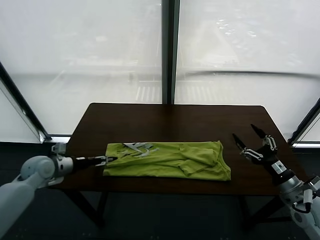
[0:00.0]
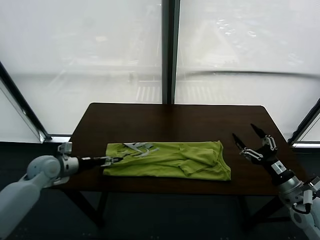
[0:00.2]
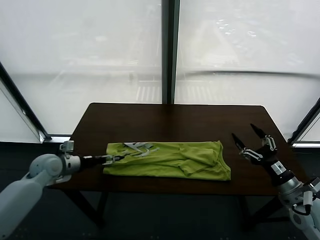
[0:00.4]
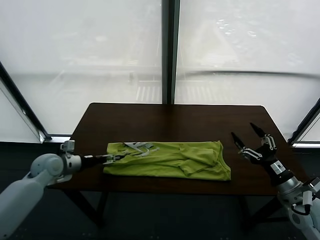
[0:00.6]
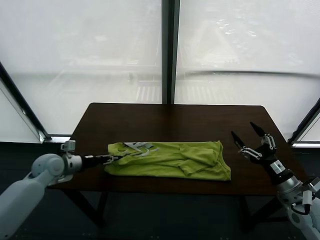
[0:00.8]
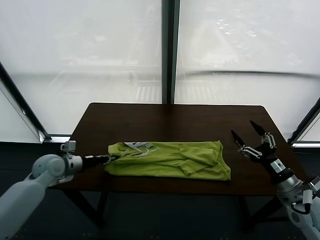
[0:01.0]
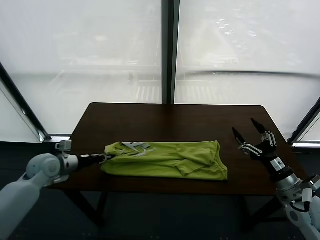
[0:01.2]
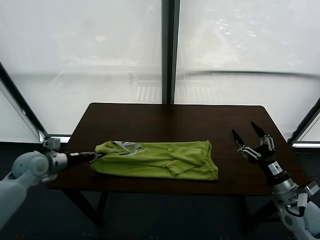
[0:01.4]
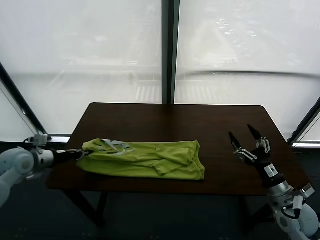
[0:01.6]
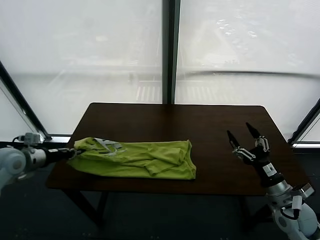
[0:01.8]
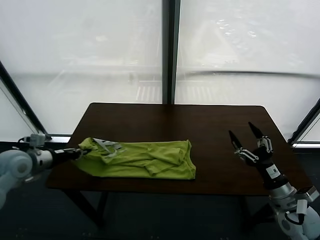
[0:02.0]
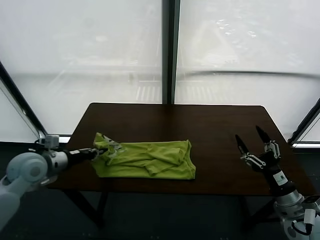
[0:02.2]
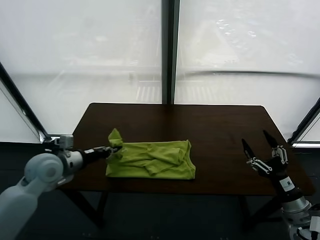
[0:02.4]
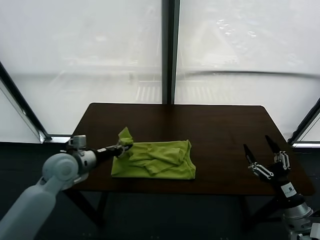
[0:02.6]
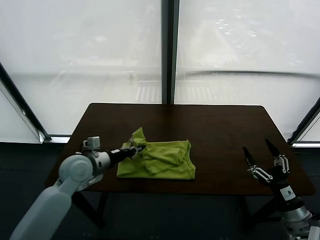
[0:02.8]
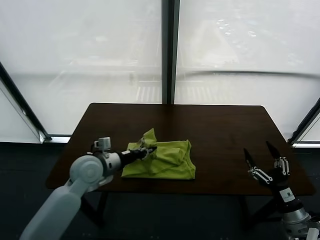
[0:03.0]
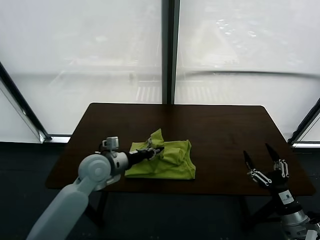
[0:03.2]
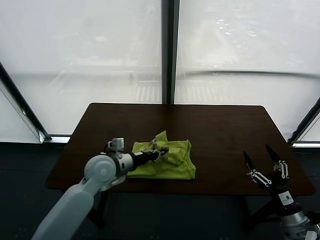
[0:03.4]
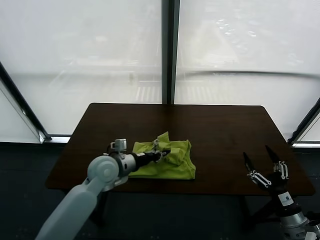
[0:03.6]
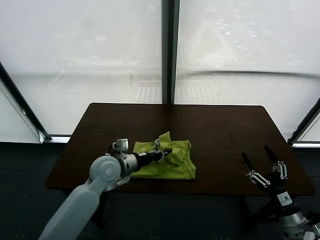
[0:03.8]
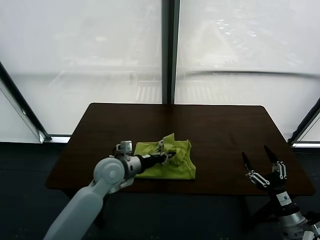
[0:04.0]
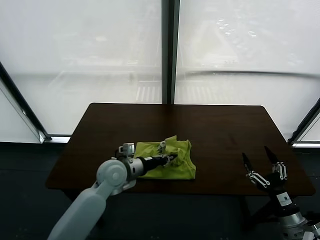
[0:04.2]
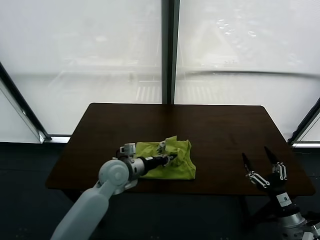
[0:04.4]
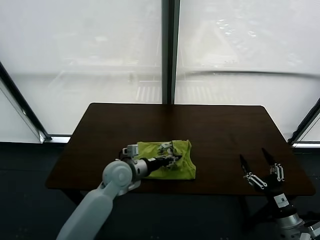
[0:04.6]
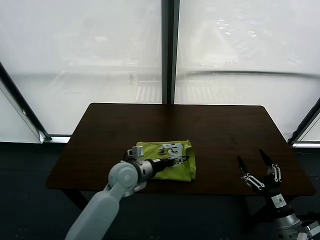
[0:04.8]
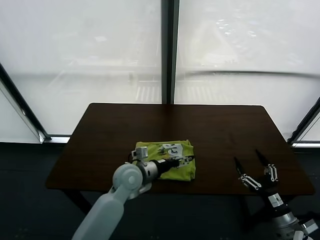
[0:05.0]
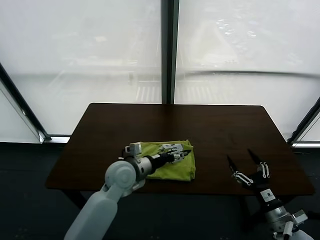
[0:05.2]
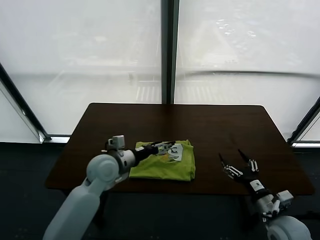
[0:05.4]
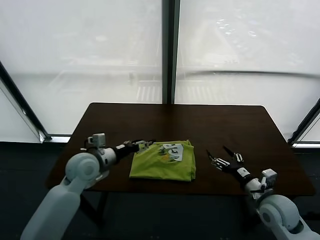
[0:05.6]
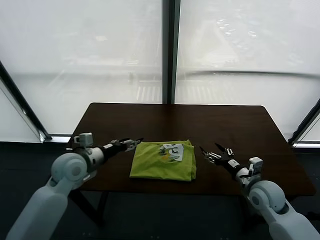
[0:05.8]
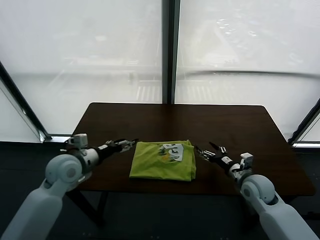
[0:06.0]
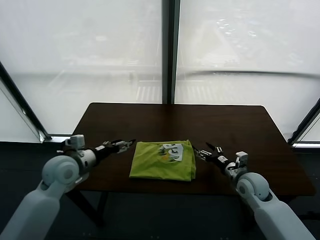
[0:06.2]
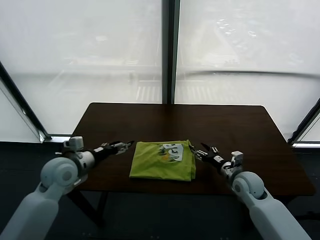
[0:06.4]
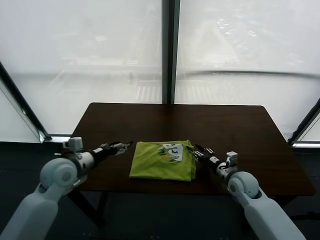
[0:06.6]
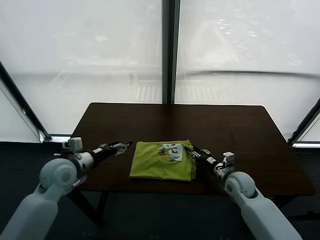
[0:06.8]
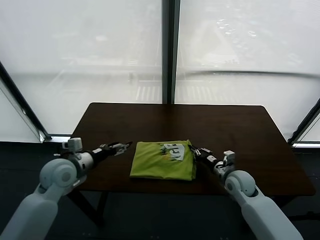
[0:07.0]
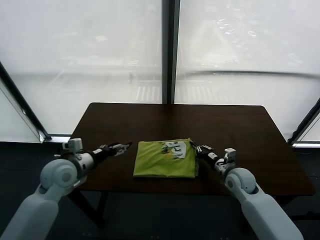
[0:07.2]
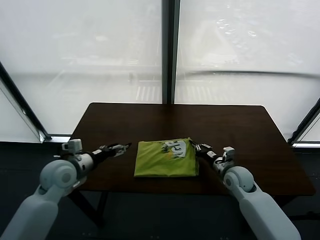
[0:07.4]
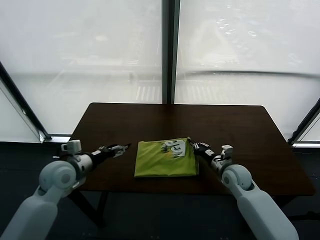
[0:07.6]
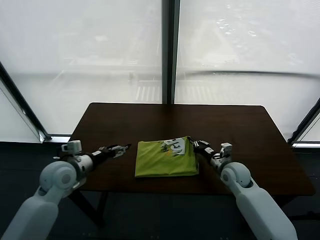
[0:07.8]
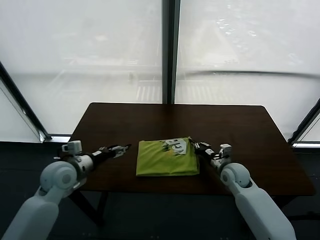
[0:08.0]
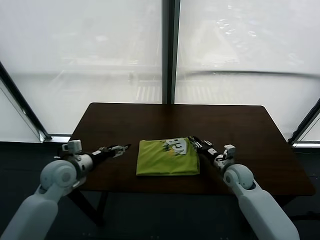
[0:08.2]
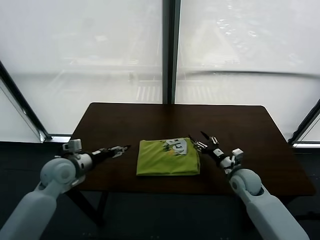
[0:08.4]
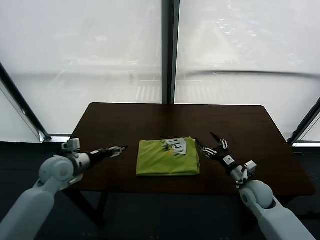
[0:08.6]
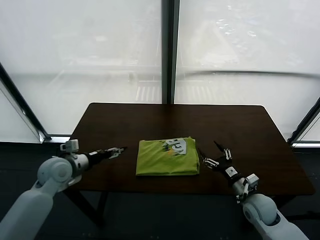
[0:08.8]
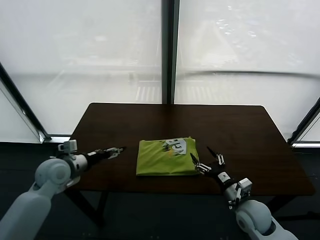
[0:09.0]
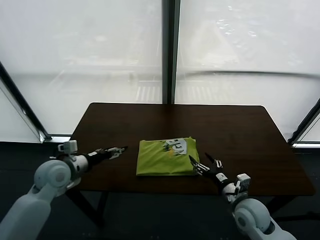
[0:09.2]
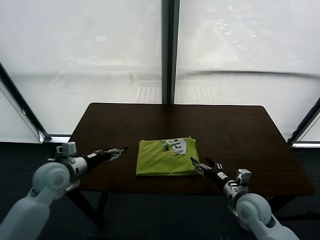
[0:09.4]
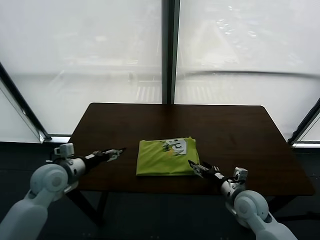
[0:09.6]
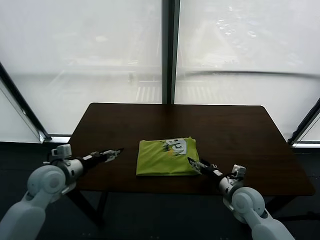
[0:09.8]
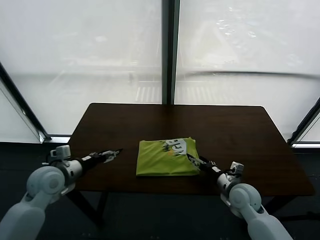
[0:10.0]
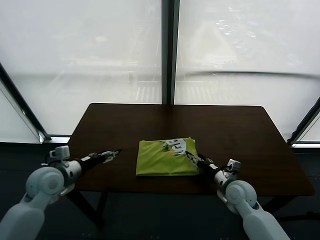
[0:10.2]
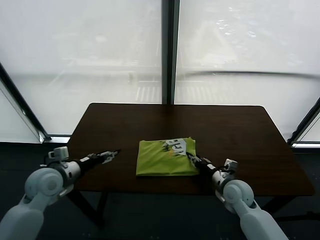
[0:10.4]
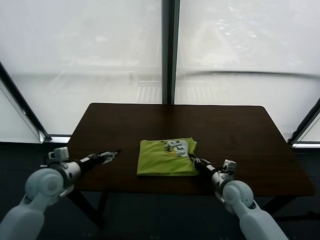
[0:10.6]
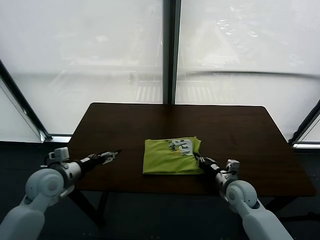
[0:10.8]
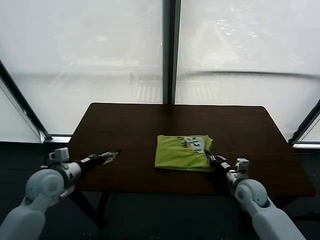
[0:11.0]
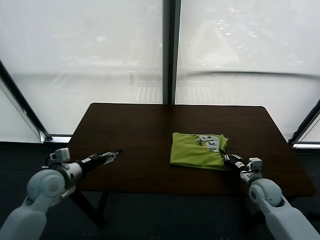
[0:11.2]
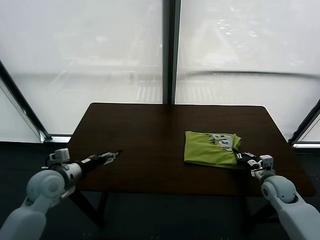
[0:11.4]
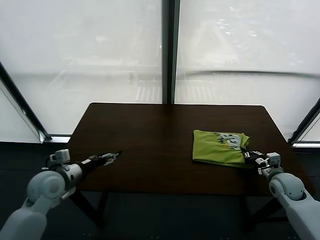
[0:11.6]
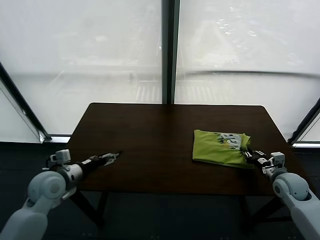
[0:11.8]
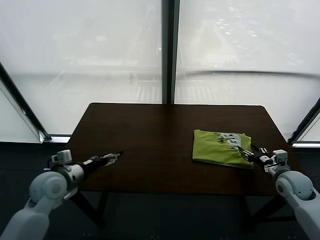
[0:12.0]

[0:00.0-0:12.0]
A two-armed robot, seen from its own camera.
Task of the whole recording: fold and organize the clothes.
Step, 0:01.2 to 0:04.8: use the left gripper to drag the left edge of the fabric to the left and folds it over the right edge.
Step, 0:05.0 to 0:12.0: Drag the clothes to the center of the table.
0:00.0 to 0:01.6: The left gripper goes approximately 10 cm upward, and closes its fingers.
0:01.6 to 0:03.0: The right gripper shifts some 5 cm backward; the left gripper heads to the right, covering some 25 cm.
0:03.0 to 0:04.4: The left gripper moves to the right, approximately 5 cm.
0:04.4 to 0:06.0: The right gripper goes roughly 20 cm forward, while the left gripper travels to the left and upward by about 15 cm, and opens.
0:06.0 to 0:07.6: The right gripper changes place by roughly 5 cm, and closes.
0:07.6 to 0:09.0: The right gripper heads backward, covering approximately 15 cm, and opens up.
0:09.0 to 0:10.4: The right gripper is displaced forward by roughly 5 cm, and closes.
0:10.4 to 0:12.0: The right gripper travels to the right and upward by some 20 cm, and opens its fingers.

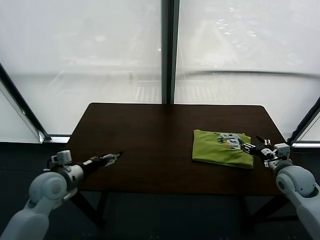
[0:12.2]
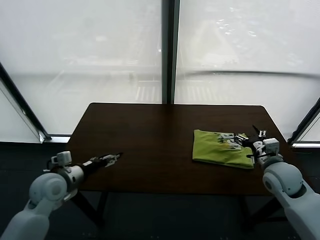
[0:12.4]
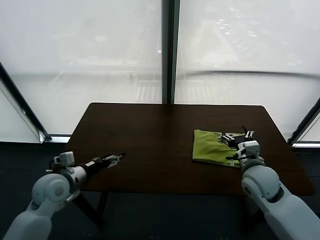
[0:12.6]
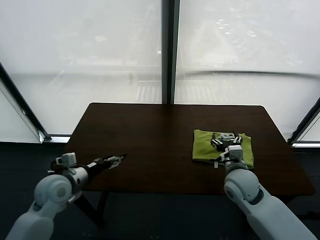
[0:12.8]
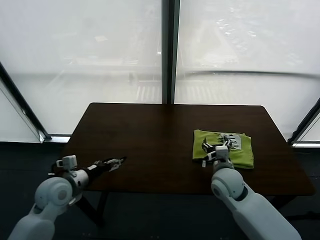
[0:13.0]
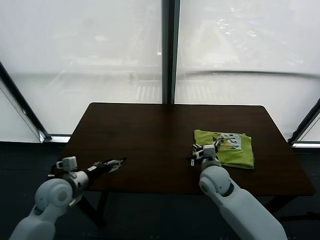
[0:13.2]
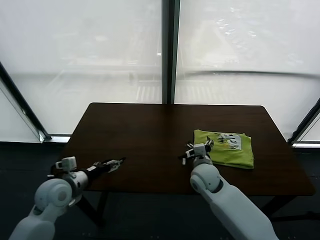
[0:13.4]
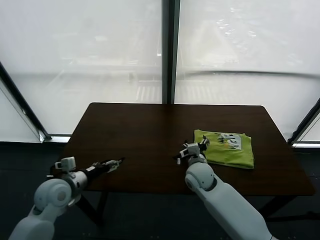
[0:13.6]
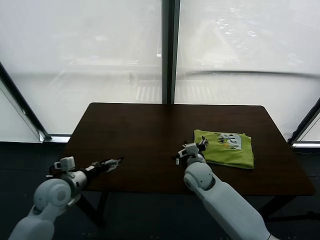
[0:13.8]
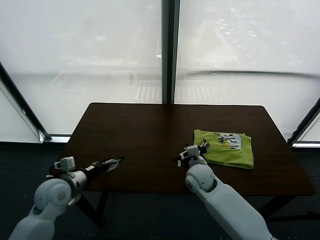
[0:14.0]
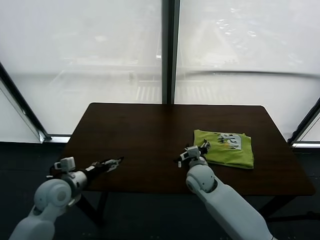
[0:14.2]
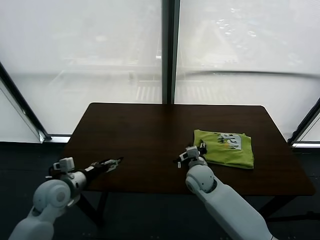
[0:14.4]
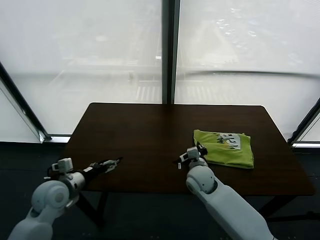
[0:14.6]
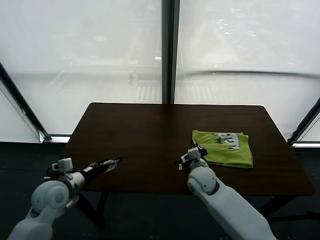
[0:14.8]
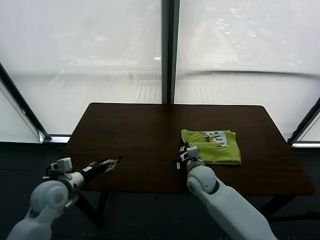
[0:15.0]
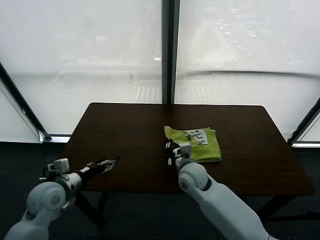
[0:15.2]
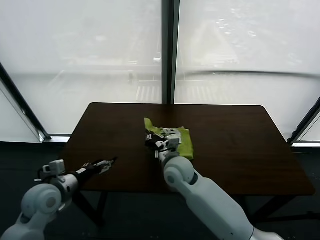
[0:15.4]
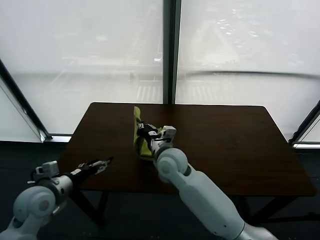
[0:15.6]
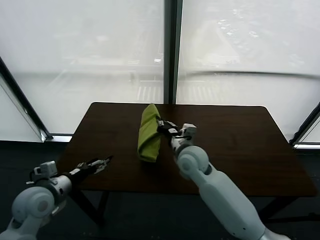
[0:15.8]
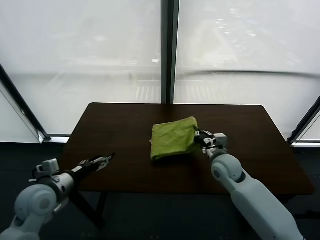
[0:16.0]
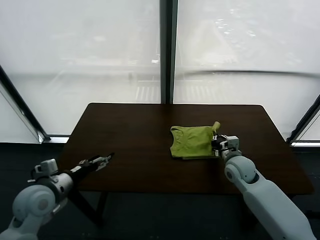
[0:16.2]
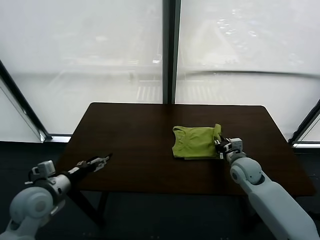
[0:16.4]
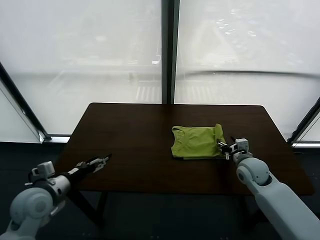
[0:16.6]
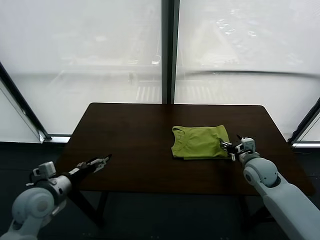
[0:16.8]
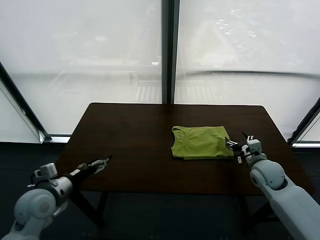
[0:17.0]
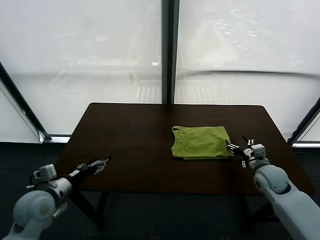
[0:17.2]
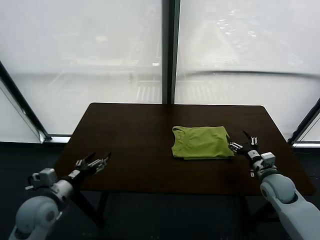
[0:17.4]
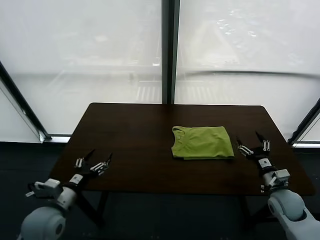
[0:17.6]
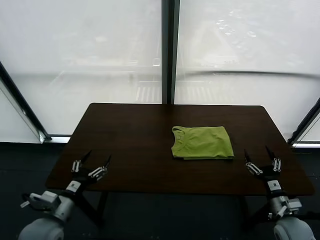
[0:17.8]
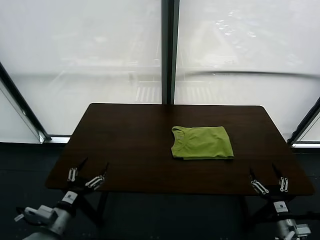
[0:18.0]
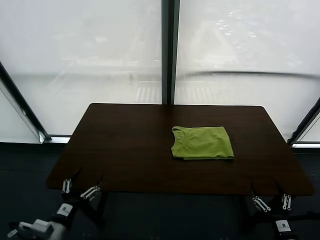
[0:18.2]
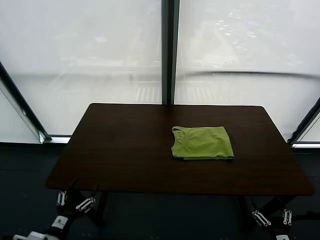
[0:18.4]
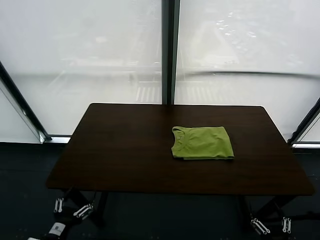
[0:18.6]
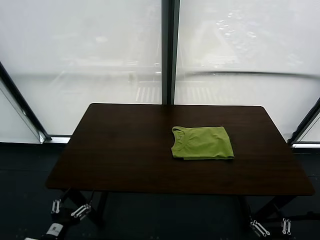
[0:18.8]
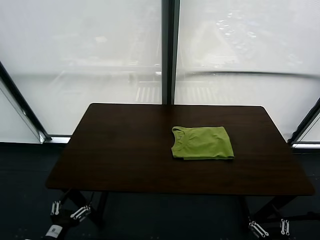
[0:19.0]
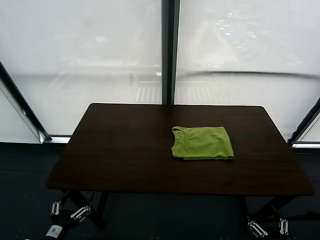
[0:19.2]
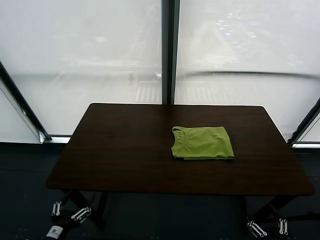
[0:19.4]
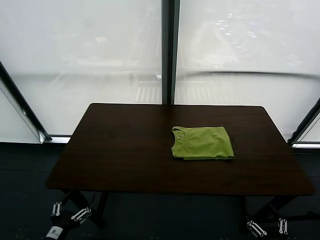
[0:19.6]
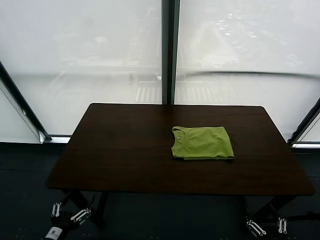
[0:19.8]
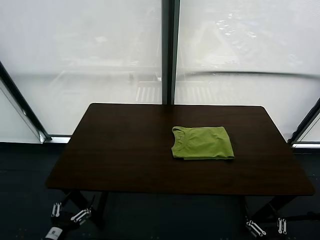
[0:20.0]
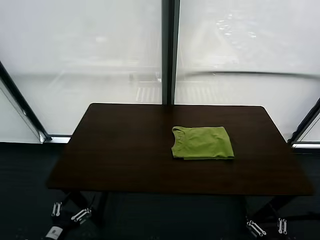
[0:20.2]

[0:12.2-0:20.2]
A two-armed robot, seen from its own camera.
Task of the whole recording: fold and organize the clothes.
Step, 0:12.2 to 0:17.0: Flip the folded clothes over with right gripper.
0:12.2 to 0:13.8: The right gripper travels to the left by approximately 25 cm.
0:13.8 to 0:15.4: The right gripper is displaced to the left and upward by approximately 10 cm, and closes up.
0:15.4 to 0:17.0: The right gripper travels to the right by approximately 30 cm, and opens its fingers.
0:17.0 to 0:18.6: The right gripper heads backward, covering approximately 35 cm. Meanwhile the left gripper is displaced backward by roughly 15 cm.
0:18.6 to 0:20.2: The grippers move only a little.

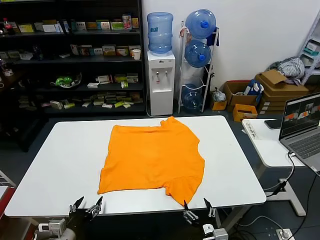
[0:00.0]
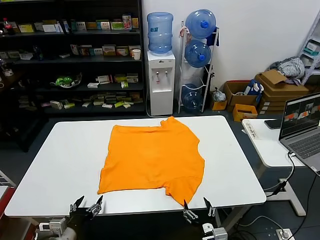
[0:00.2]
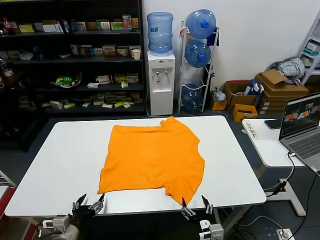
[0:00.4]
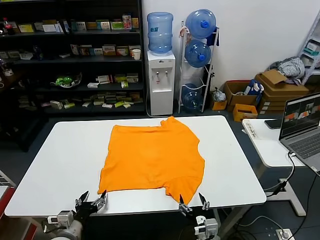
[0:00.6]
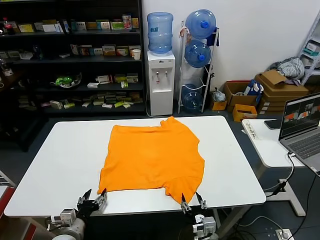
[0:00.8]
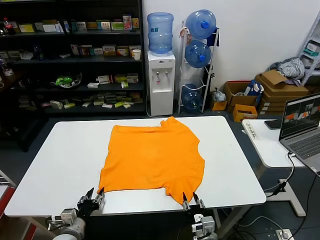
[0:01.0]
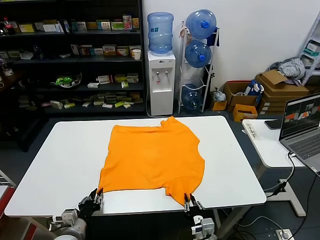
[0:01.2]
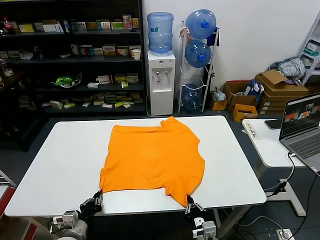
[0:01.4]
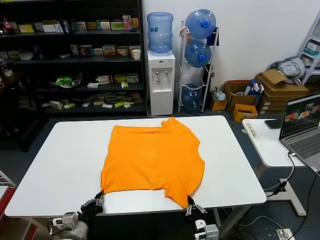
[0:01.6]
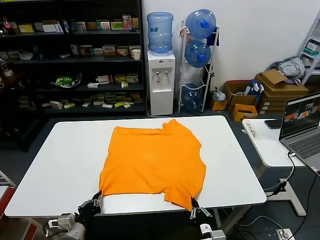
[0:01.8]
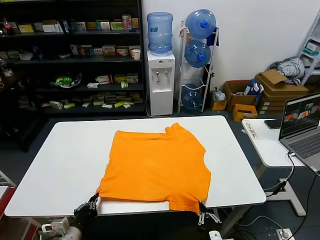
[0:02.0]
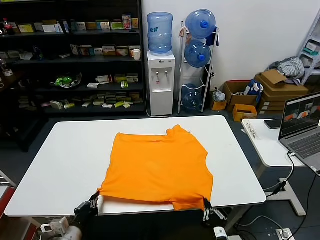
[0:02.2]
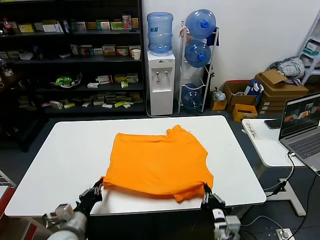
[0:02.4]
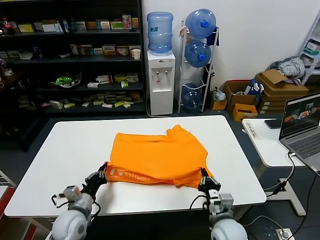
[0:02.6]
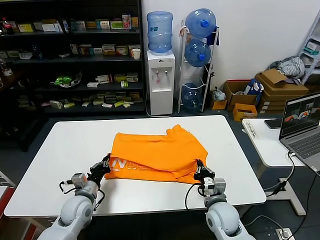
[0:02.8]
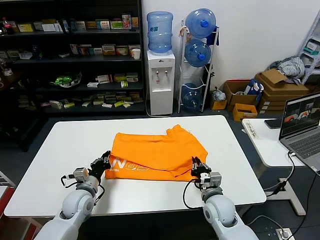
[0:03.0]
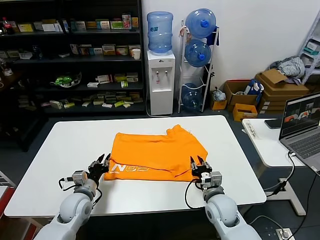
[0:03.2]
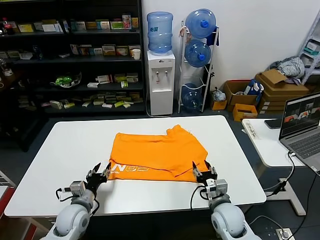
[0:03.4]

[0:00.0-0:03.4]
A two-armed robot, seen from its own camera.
Task of the whole recording: fold and organize the clothes.
Step, 0:00.0 to 0:01.4: use both grippers simultaneously to clamp the lower edge of the clothing fabric.
Step, 0:01.6 to 0:03.0: use both grippers to drag the lower edge of the fabric forward and fold it over the upper edge.
0:01.6 to 0:03.4: The left gripper moves forward, some 10 cm, and opens up, while the right gripper swings forward and backward, about 20 cm each way, with 2 reversals, and opens its fingers.
